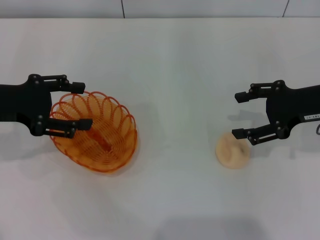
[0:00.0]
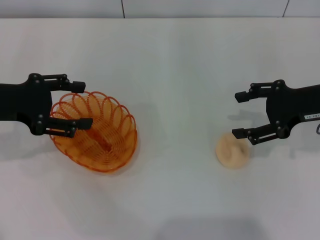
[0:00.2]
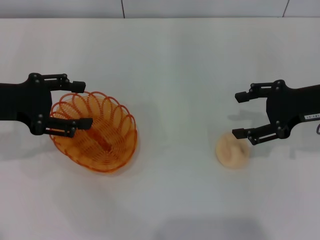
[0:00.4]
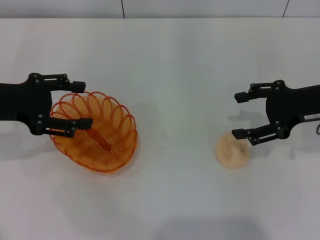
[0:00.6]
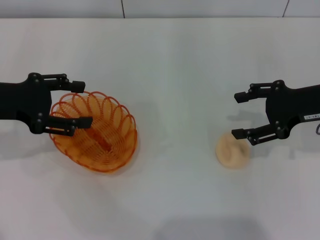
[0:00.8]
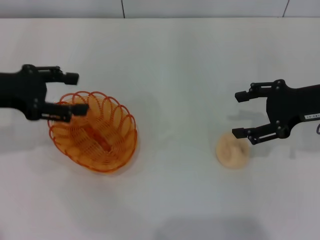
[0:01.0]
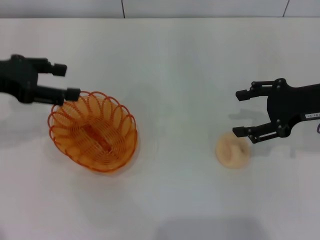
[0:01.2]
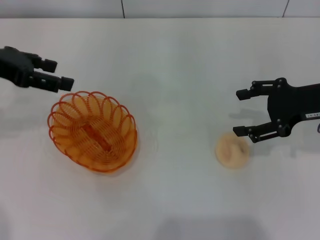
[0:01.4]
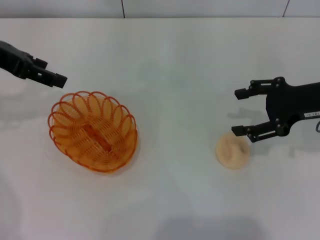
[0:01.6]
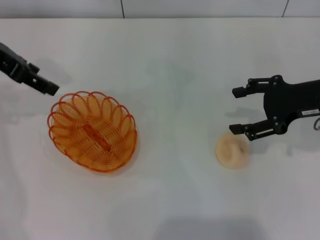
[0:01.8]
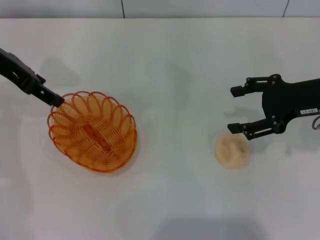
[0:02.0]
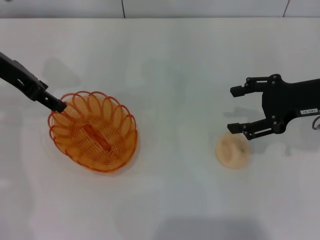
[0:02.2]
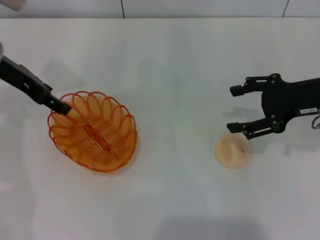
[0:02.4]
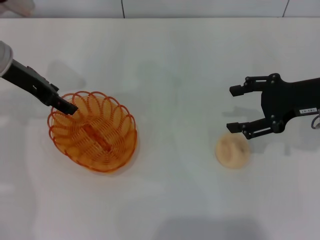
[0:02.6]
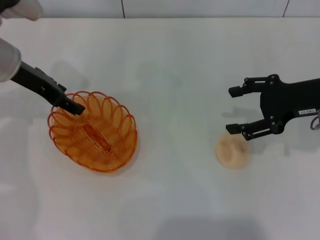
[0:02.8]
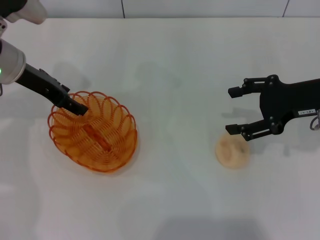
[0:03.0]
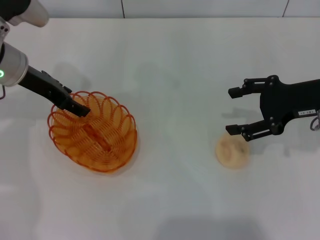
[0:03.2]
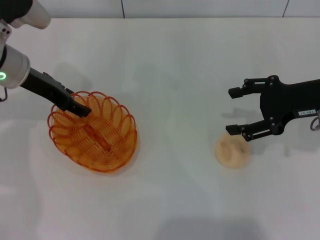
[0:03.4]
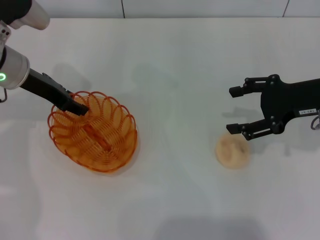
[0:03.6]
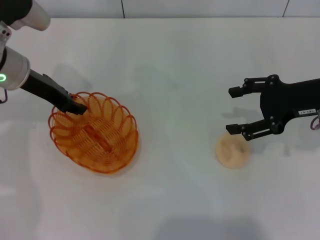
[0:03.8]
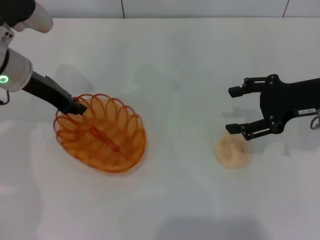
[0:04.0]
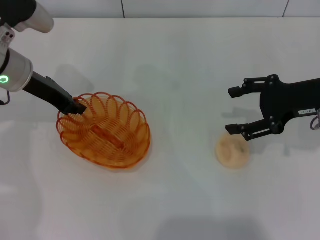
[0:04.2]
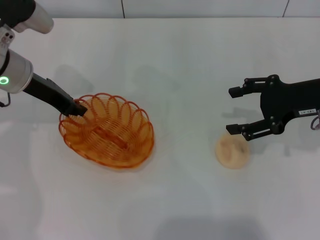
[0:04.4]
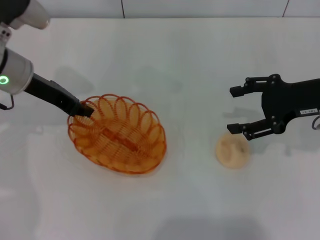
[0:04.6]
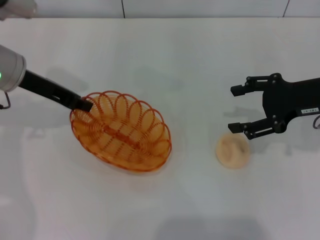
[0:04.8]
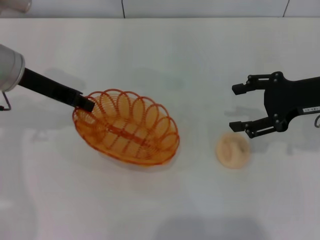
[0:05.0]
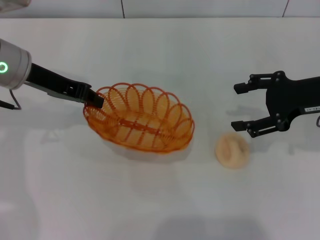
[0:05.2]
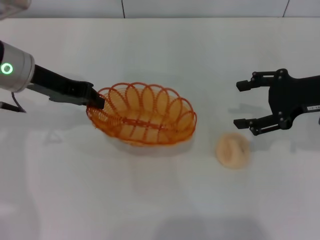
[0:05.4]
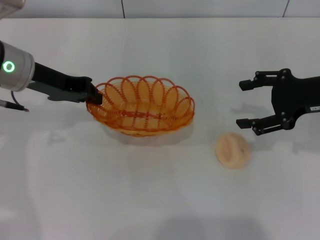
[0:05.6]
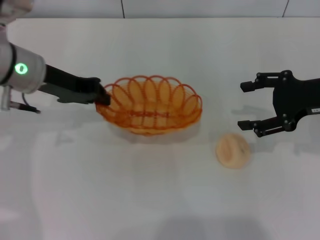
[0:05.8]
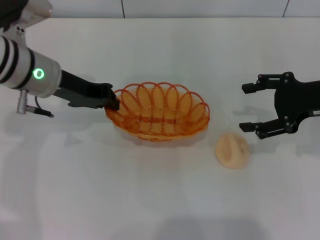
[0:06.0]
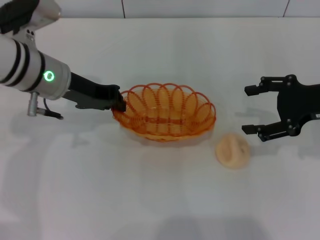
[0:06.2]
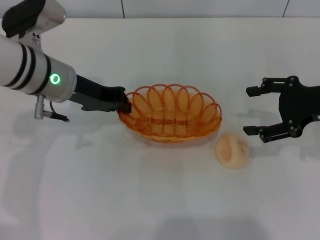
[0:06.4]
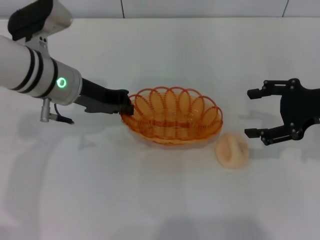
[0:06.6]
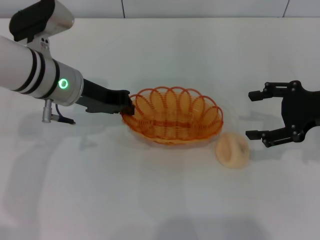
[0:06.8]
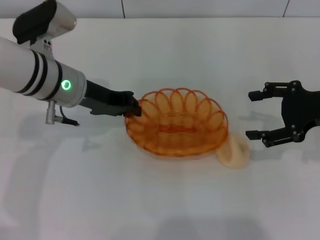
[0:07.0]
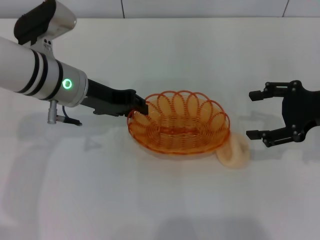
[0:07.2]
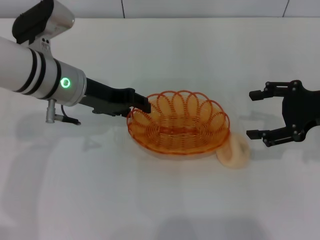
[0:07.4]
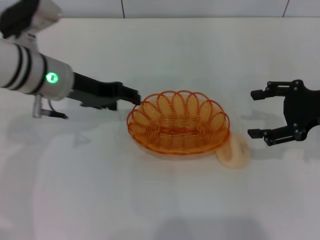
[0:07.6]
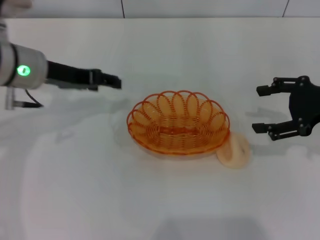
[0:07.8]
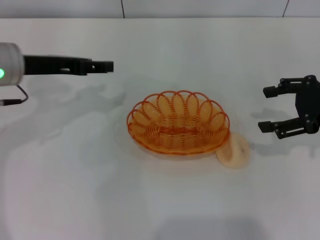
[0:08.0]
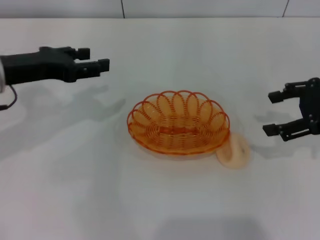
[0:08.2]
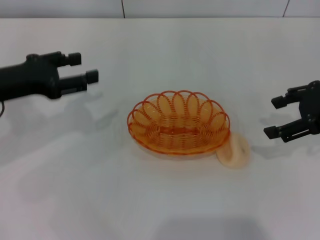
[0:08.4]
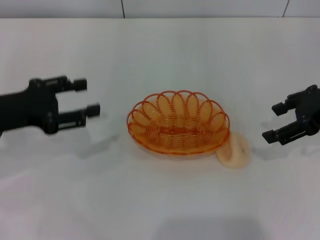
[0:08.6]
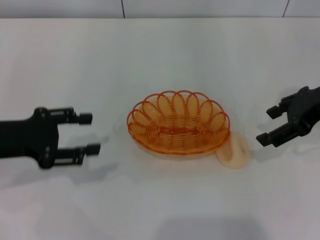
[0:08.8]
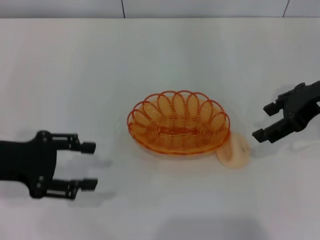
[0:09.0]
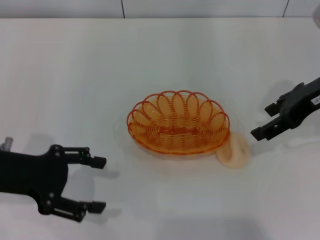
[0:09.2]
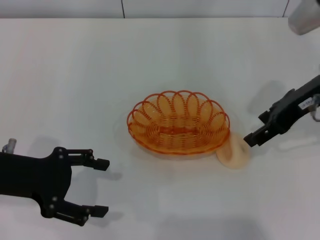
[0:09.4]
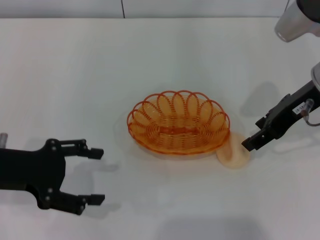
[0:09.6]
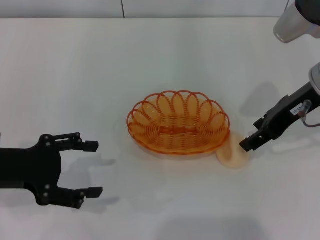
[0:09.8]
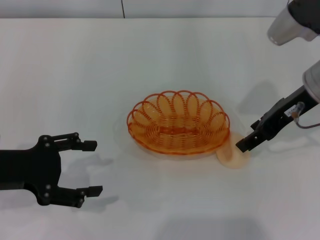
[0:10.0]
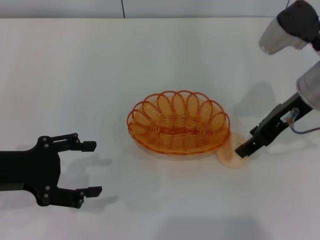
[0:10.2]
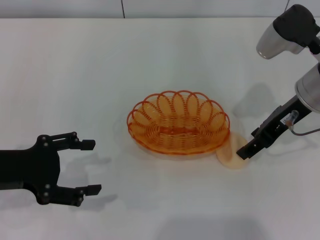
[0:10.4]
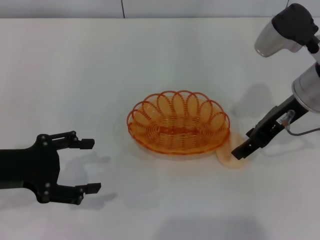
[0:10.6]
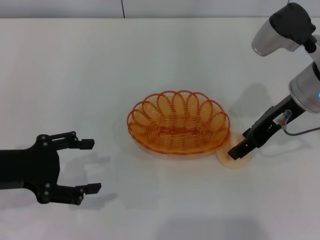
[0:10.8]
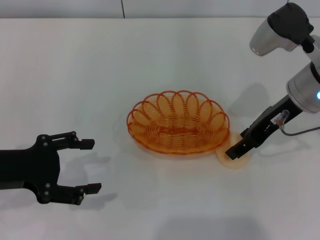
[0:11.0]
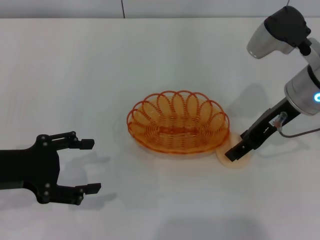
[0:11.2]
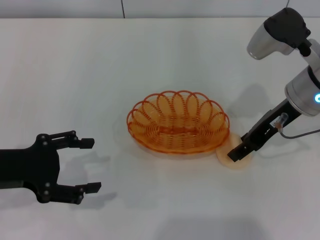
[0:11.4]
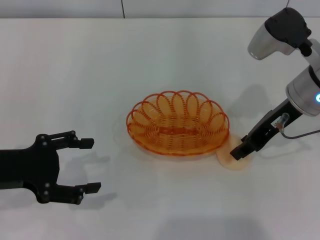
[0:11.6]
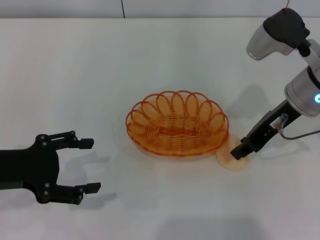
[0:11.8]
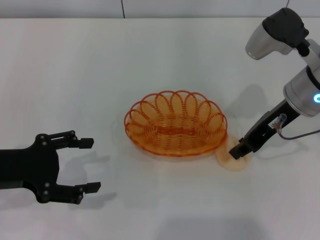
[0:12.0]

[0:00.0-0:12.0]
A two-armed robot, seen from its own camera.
Step, 0:00.0 to 0:05.4: Pick up the basket with the left gripper.
Step, 0:05.6 to 0:08.0: Place the basket in the center of view with the left gripper.
0:00.0 to 0:01.6: The left gripper moves upward and forward, about 10 cm.
0:01.6 to 0:03.0: The left gripper heads downward, covering roughly 10 cm.
0:03.0 to 0:04.4: The left gripper closes.
0:04.4 to 0:06.0: The left gripper moves some 5 cm.
0:06.0 to 0:07.6: The left gripper opens up.
0:07.6 to 0:09.0: The right gripper travels upward by roughly 5 cm. Meanwhile the left gripper goes roughly 15 cm to the left and backward.
0:09.0 to 0:10.4: The right gripper goes some 5 cm to the left.
0:10.4 to 0:12.0: The right gripper closes.

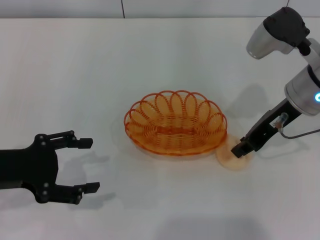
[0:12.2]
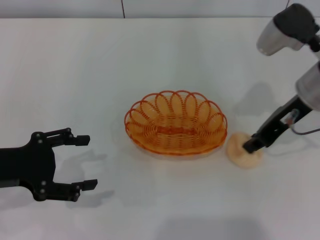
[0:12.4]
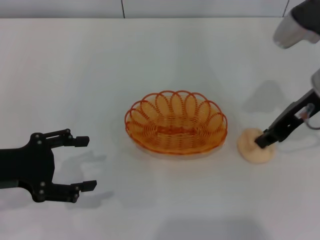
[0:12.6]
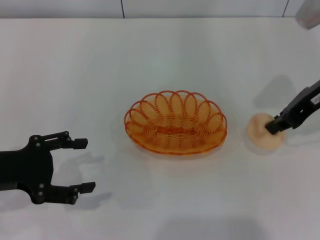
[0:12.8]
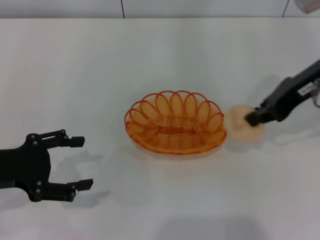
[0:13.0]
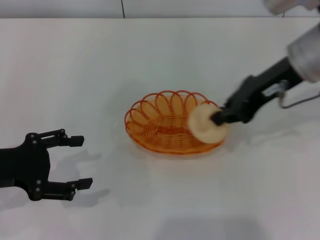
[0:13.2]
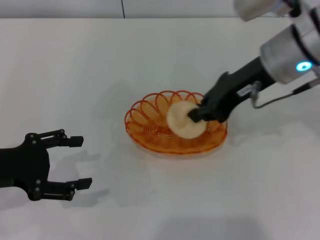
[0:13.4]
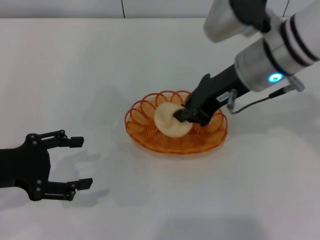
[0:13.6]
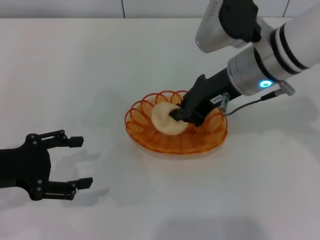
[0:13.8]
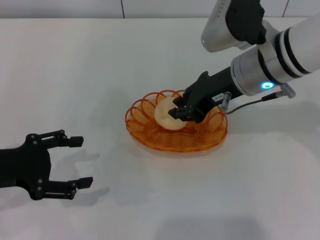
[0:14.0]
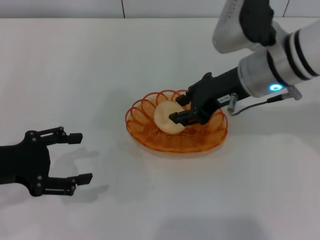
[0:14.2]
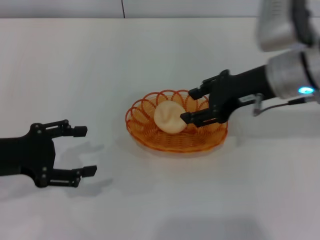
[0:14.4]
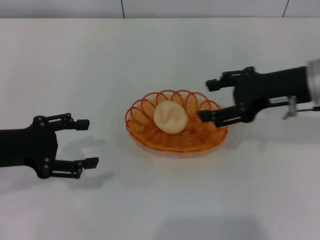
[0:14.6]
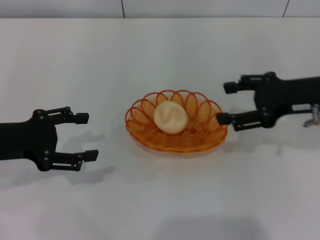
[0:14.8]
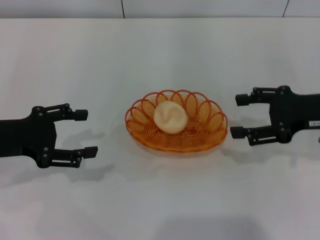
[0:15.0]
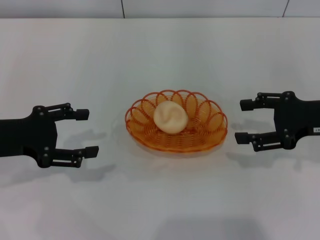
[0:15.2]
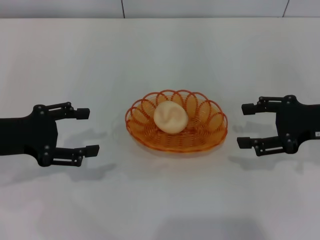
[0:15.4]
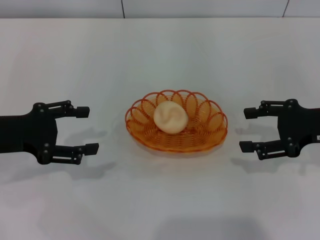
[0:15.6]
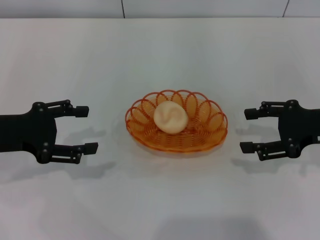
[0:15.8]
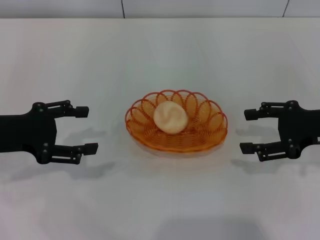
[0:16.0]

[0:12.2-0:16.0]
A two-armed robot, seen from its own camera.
Step, 0:12.8 to 0:14.6: Place the egg yolk pastry into the basket with the right gripper.
0:12.2 to 0:13.4: The right gripper moves approximately 5 cm.
0:13.4 to 0:14.8: The right gripper is displaced to the right and downward by some 15 cm, and opens up.
0:14.8 to 0:16.0: The right gripper changes place by roughly 5 cm.
